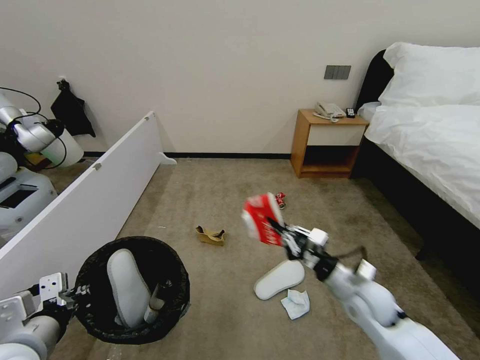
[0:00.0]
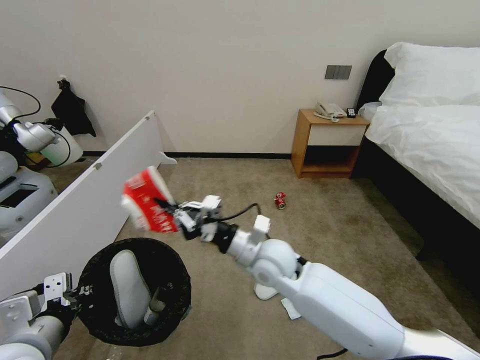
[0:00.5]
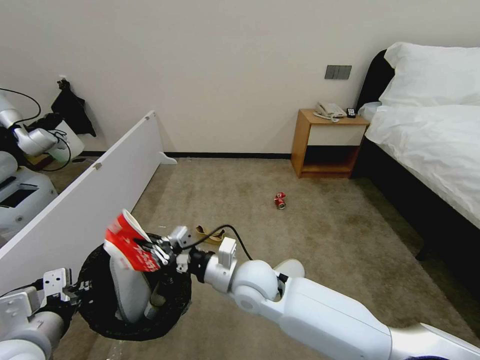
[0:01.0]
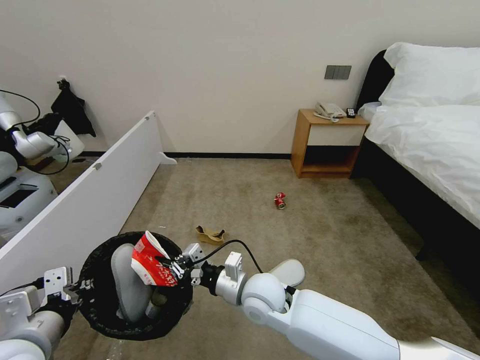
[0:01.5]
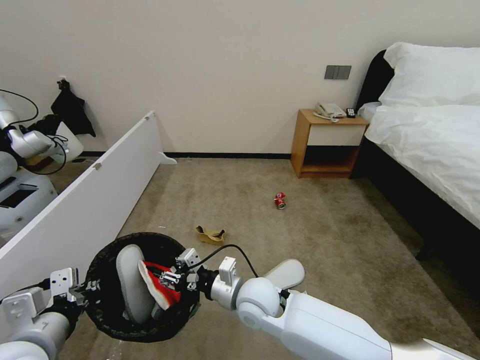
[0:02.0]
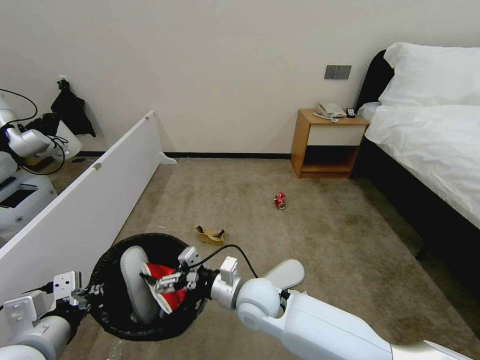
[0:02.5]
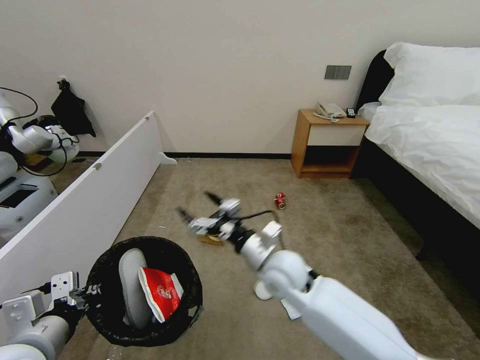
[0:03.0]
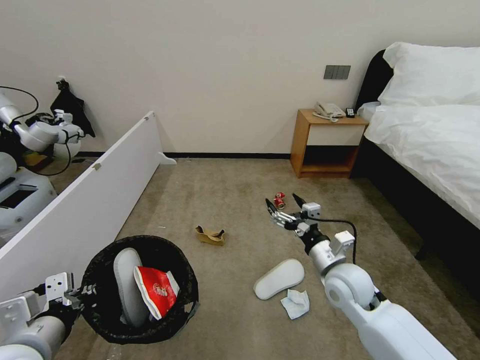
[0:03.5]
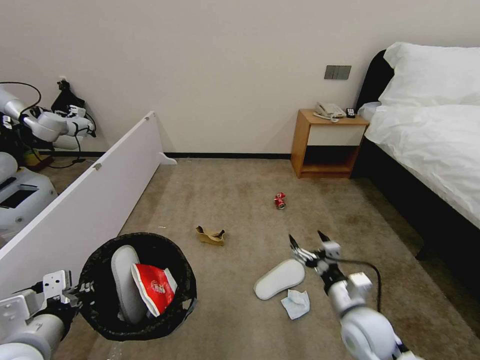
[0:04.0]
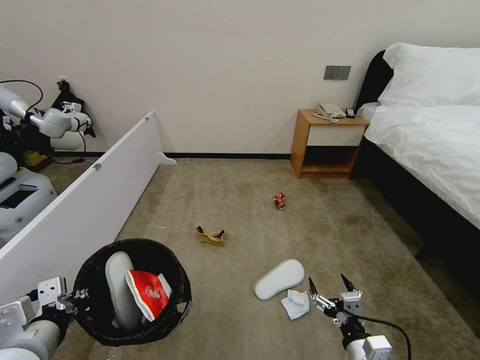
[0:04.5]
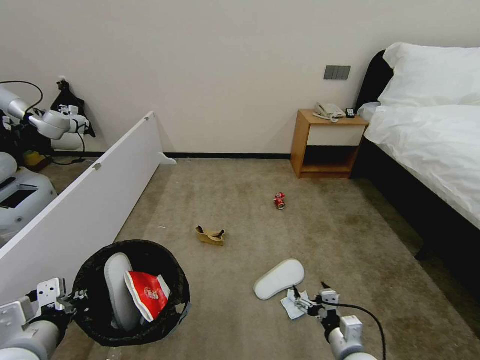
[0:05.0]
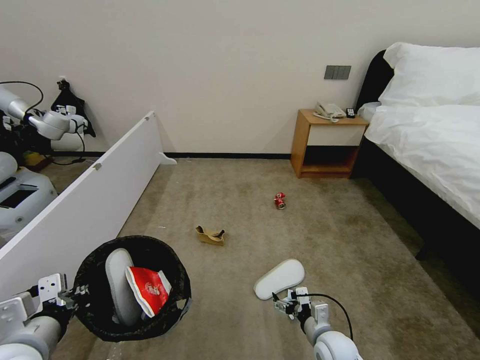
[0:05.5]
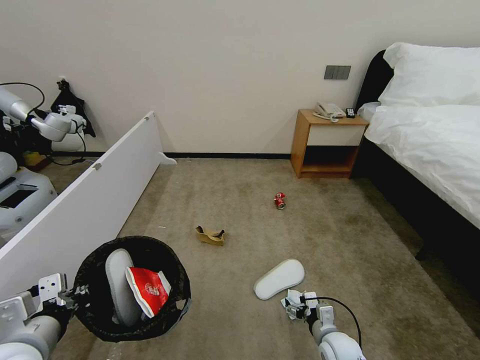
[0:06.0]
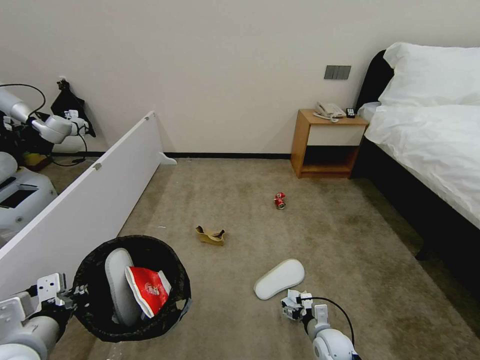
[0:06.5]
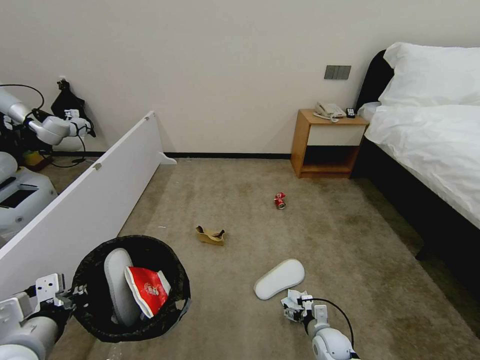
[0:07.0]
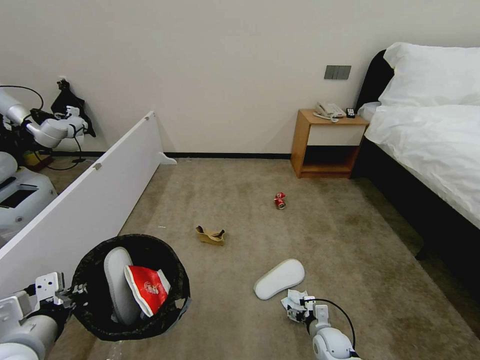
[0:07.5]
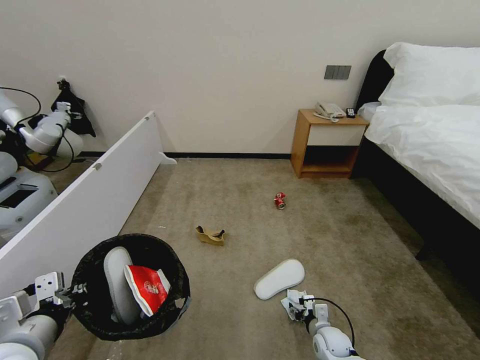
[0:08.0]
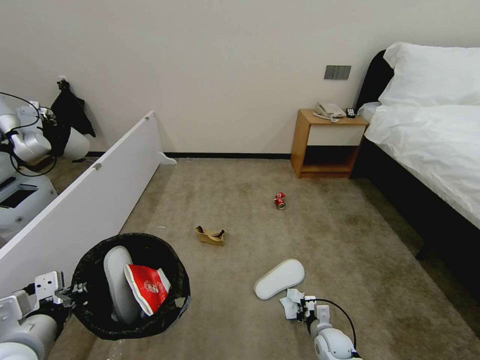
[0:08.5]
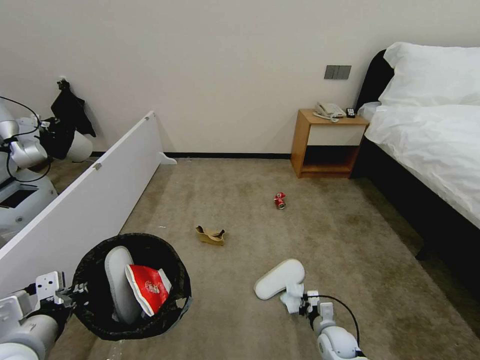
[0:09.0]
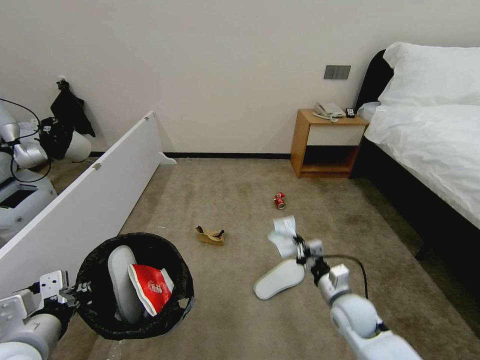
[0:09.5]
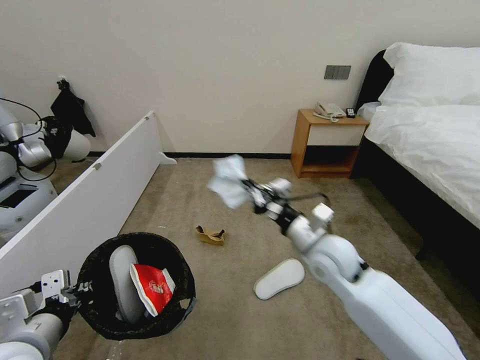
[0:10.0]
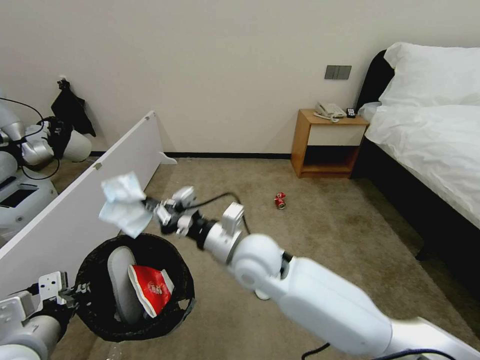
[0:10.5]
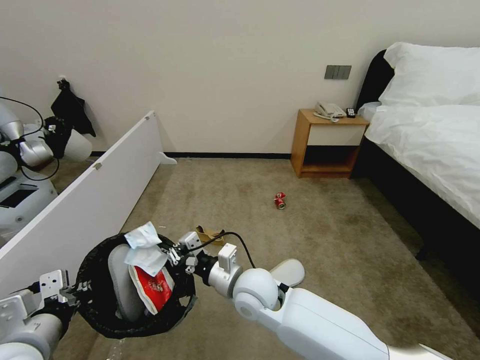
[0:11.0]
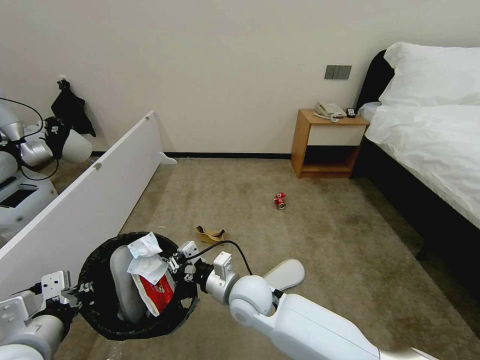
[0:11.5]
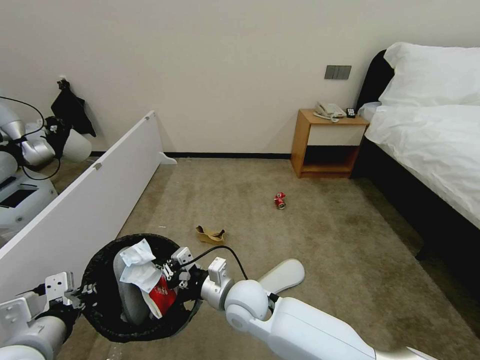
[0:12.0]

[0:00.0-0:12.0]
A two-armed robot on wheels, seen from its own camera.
Task of the whole recording: Pick up the trash bin, then pick up the garbage from the floor and place it into the trash bin.
0:00.0 to 0:02.0: The right gripper shifts roughly 25 cm to the left, and opens.
0:02.0 to 0:04.0: The right gripper shifts approximately 20 cm to the right, and opens.
0:04.0 to 0:06.0: The right gripper travels downward by approximately 20 cm.
0:06.0 to 0:08.0: The right gripper goes approximately 5 cm downward.
0:08.0 to 0:10.0: The right gripper travels upward by roughly 35 cm, and closes.
0:10.0 to 0:12.0: The right gripper shifts some 20 cm to the left and downward.

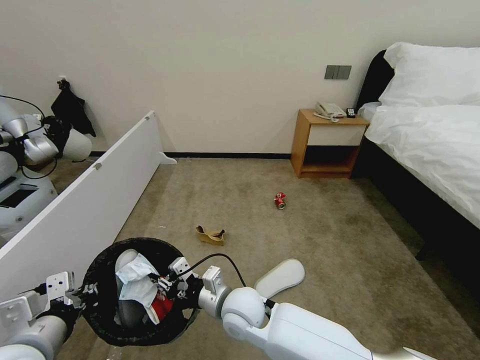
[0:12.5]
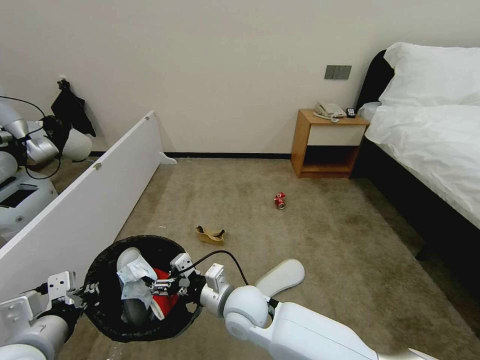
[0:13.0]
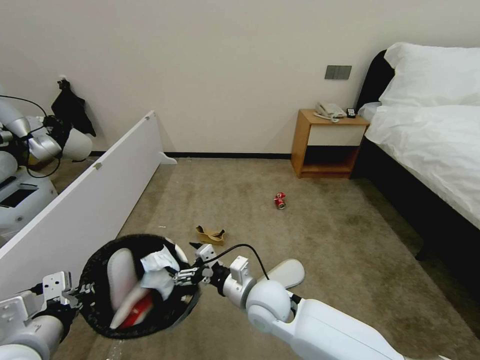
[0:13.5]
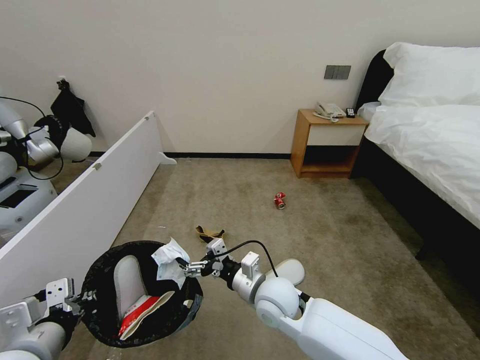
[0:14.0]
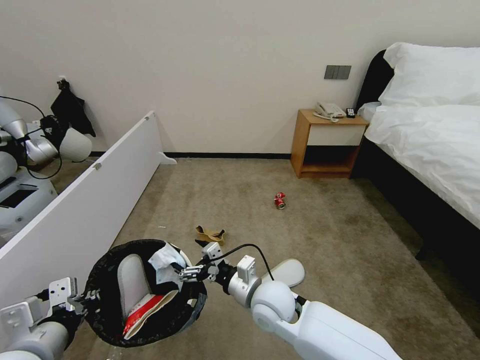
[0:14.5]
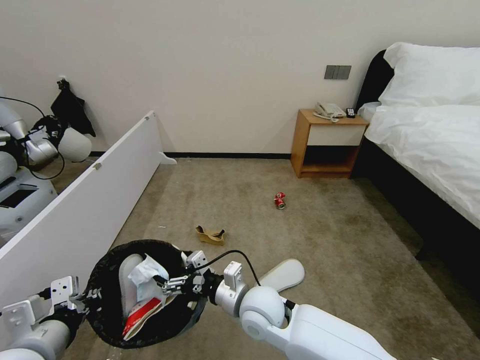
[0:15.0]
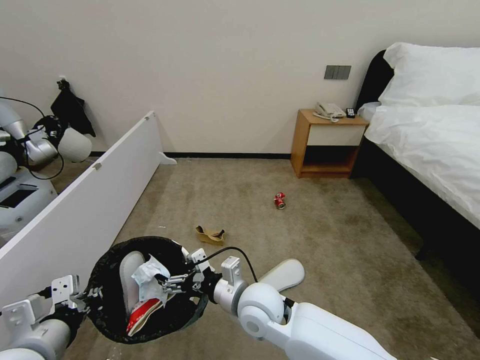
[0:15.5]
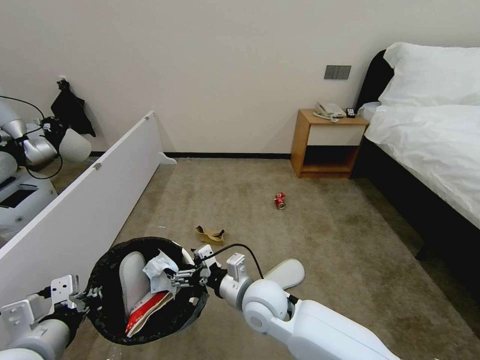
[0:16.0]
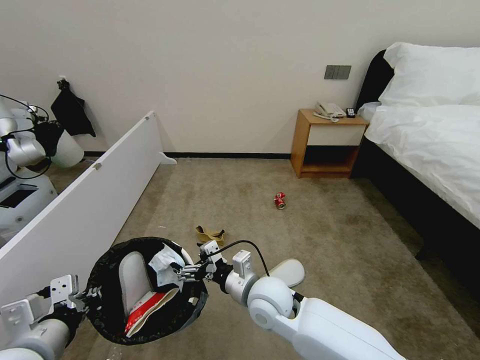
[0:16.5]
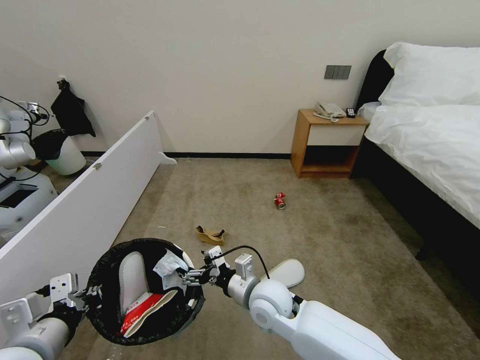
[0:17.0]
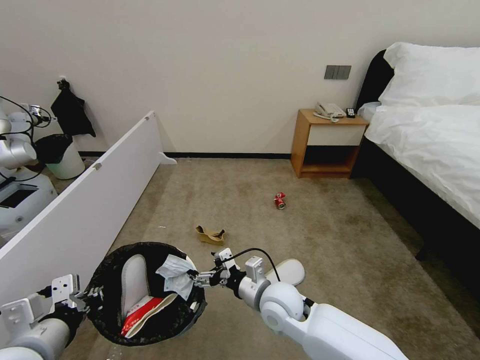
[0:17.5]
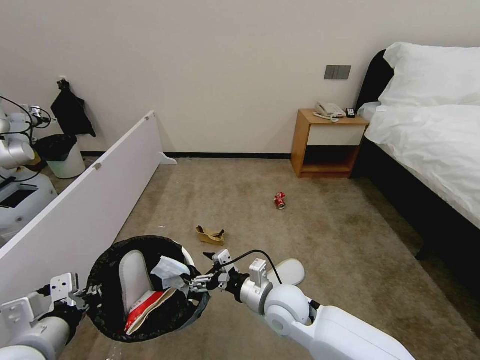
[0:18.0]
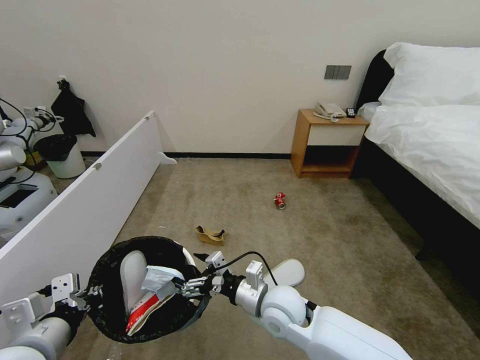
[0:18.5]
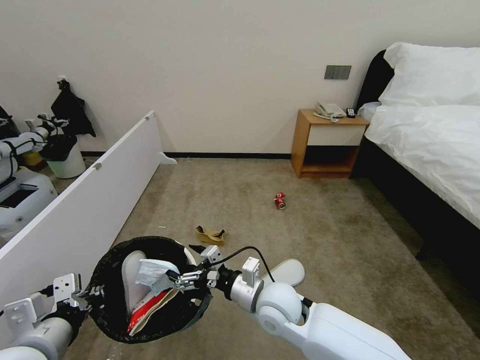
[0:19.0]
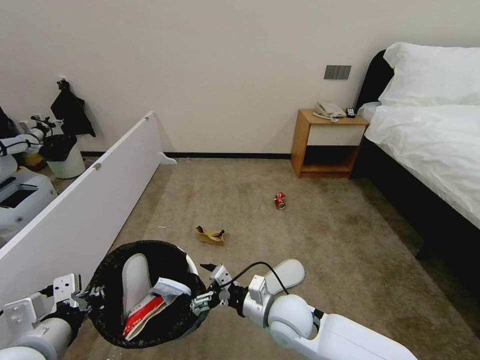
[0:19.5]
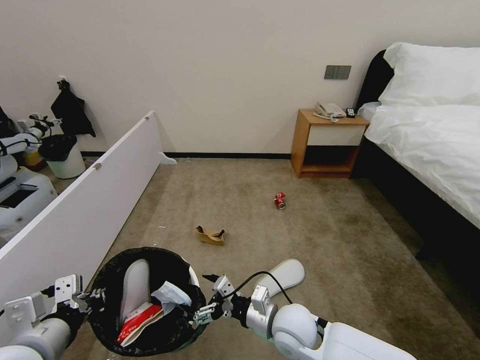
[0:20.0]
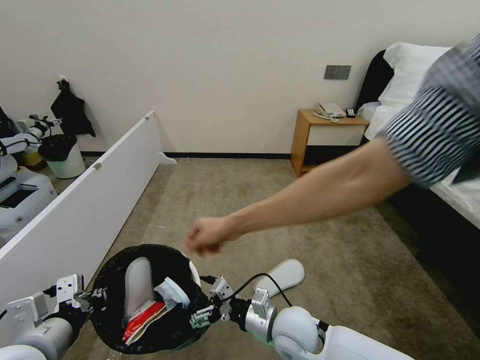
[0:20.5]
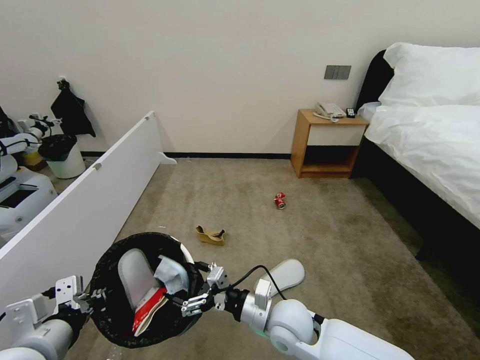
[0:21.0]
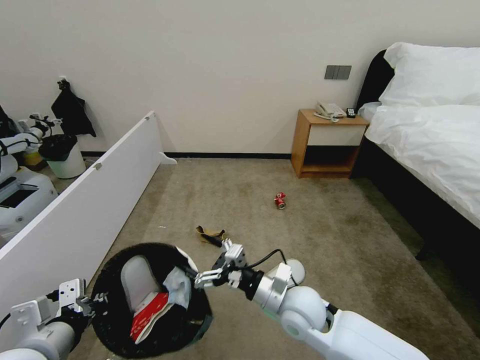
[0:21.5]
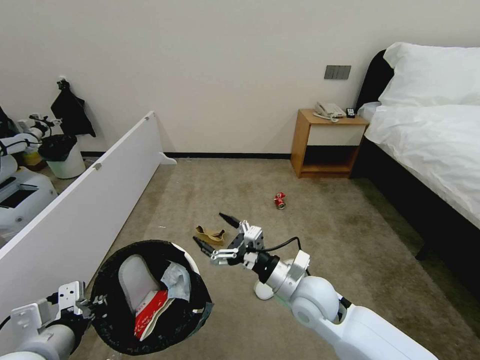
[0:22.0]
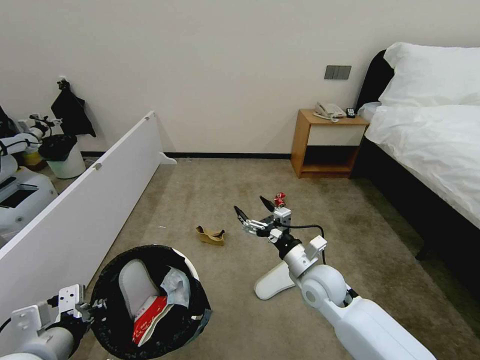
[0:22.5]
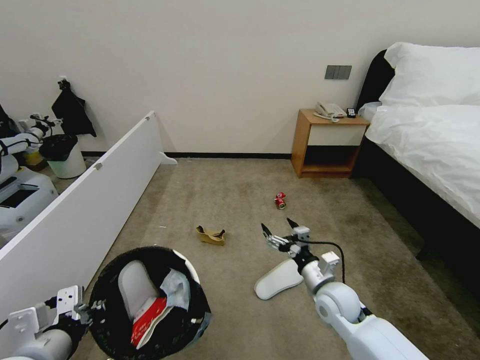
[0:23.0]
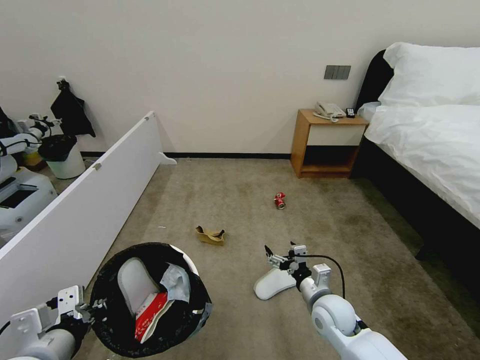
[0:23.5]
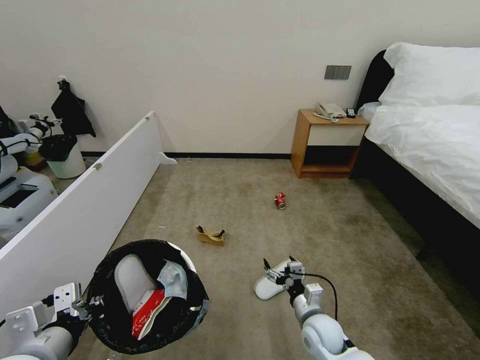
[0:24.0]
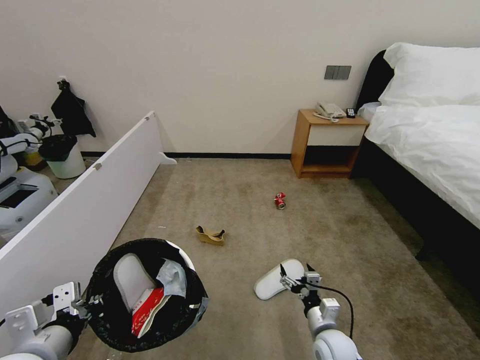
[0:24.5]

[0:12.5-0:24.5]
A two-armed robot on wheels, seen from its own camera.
Task of the whole recording: Pick up the trash bin, then pick up the garbage from the floor and place it into the trash bin.
0:12.5 to 0:14.5: The right gripper shifts roughly 5 cm to the right, and opens up.
0:14.5 to 0:18.5: There are only small adjustments of the grippers.
0:18.5 to 0:20.5: The right gripper moves about 5 cm.
0:20.5 to 0:22.5: The right gripper travels forward and to the right by roughly 10 cm.
0:22.5 to 0:24.5: The right gripper travels downward and backward by roughly 20 cm.

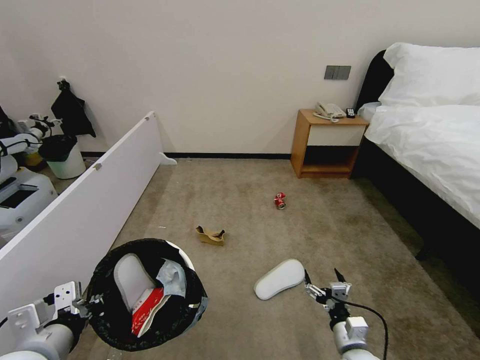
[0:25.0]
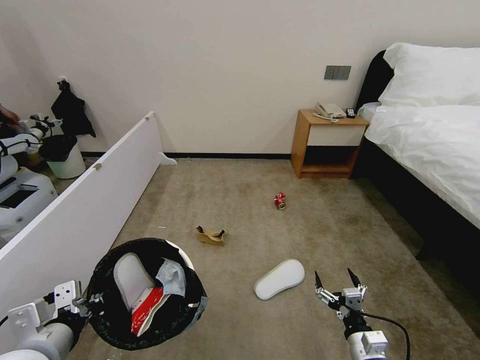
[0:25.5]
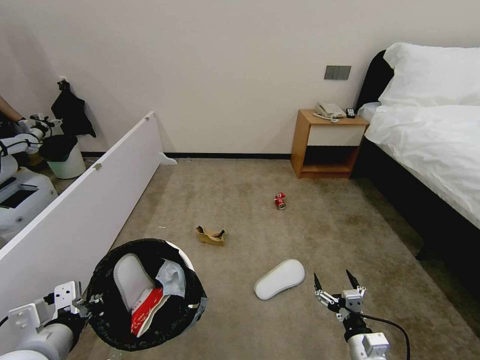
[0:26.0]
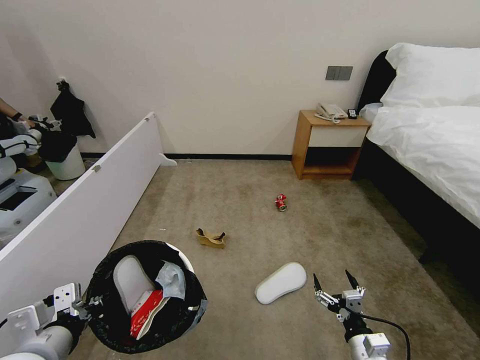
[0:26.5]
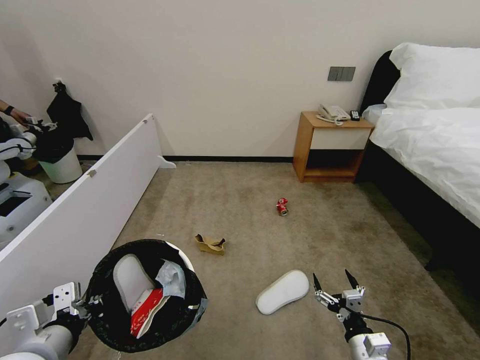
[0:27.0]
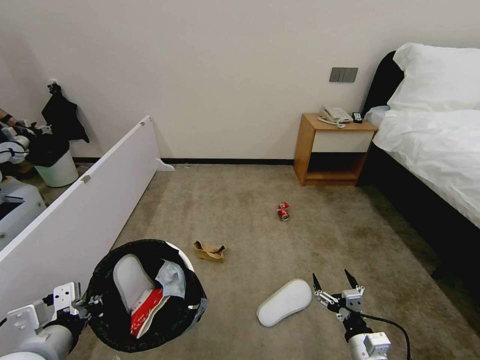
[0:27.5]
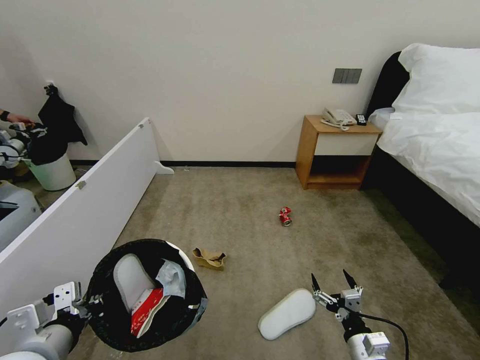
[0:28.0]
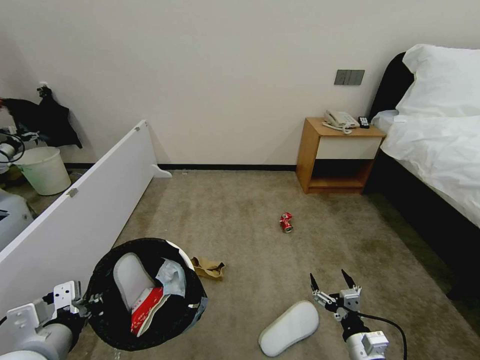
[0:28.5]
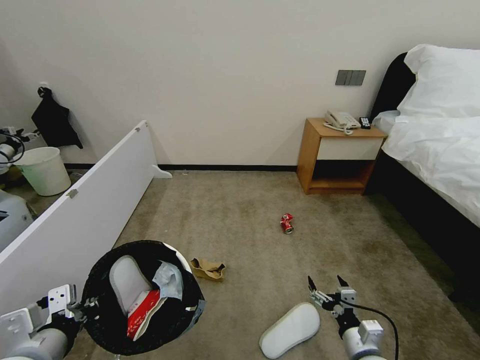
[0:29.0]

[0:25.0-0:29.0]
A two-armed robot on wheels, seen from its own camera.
Task of the whole recording: Pick up the trash bin, then pick up the garbage from the floor and place it into the trash bin.
0:25.0 to 0:27.0: The grippers stay close to where they were, moving slightly.
